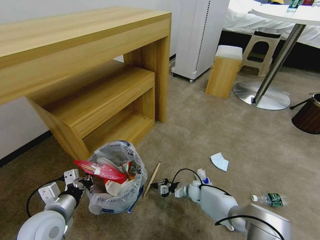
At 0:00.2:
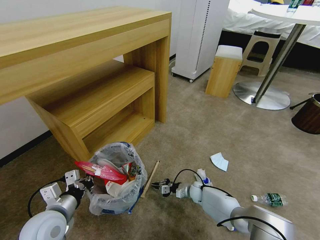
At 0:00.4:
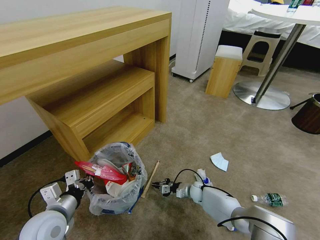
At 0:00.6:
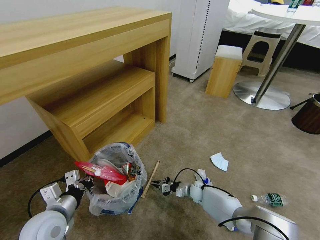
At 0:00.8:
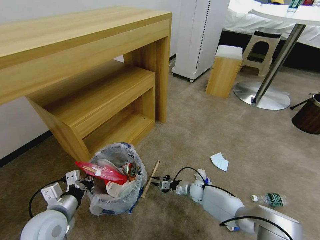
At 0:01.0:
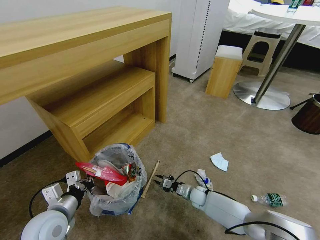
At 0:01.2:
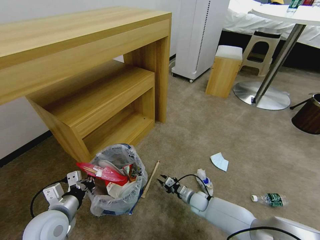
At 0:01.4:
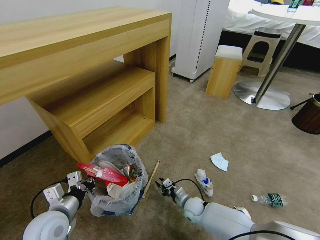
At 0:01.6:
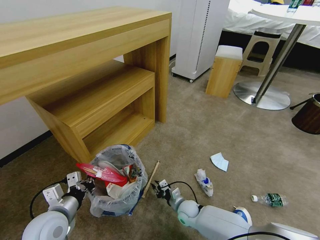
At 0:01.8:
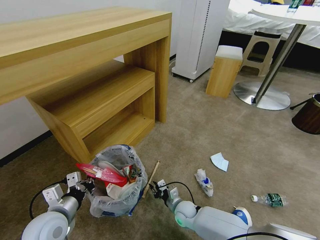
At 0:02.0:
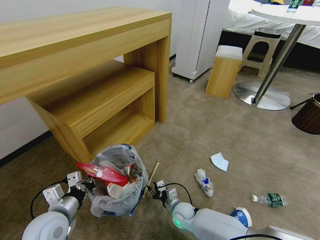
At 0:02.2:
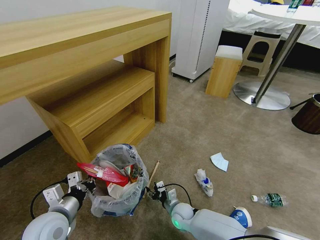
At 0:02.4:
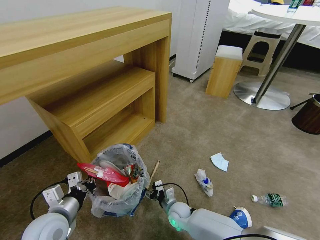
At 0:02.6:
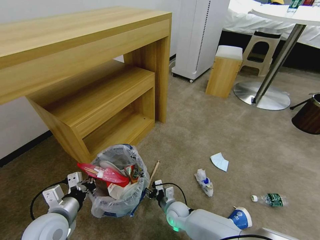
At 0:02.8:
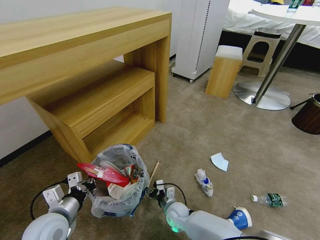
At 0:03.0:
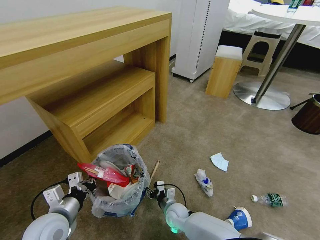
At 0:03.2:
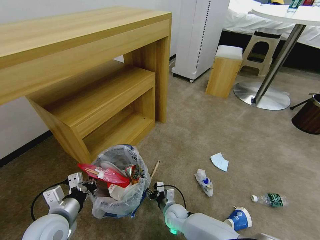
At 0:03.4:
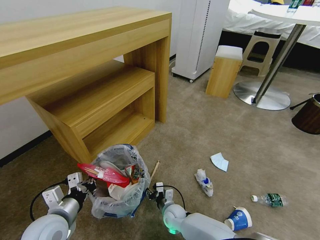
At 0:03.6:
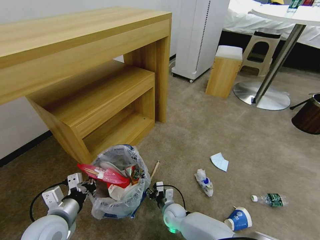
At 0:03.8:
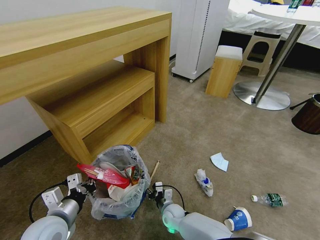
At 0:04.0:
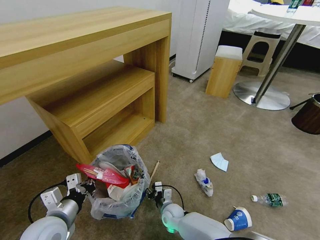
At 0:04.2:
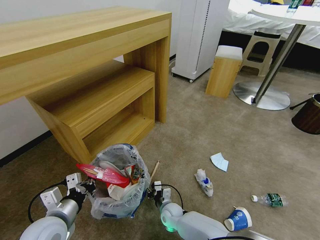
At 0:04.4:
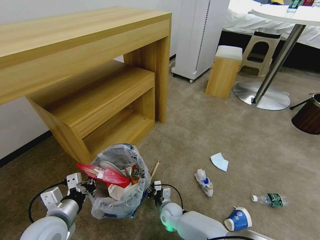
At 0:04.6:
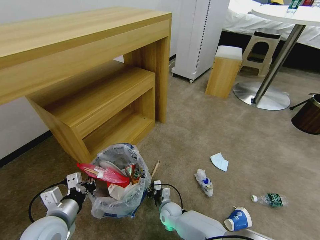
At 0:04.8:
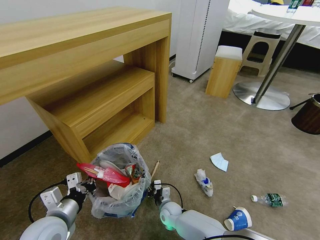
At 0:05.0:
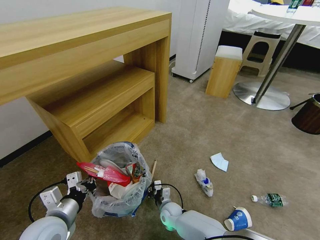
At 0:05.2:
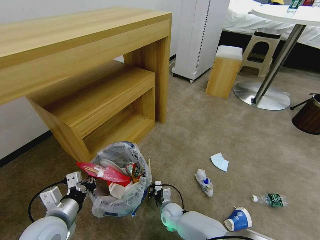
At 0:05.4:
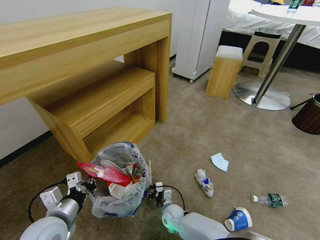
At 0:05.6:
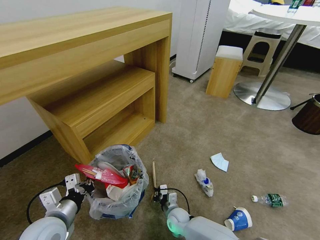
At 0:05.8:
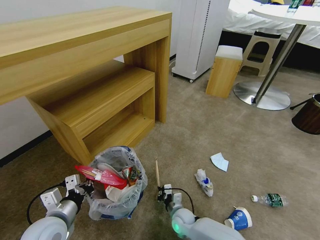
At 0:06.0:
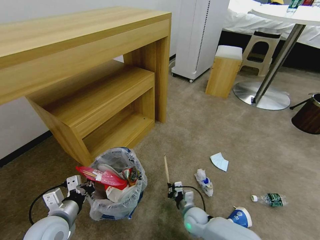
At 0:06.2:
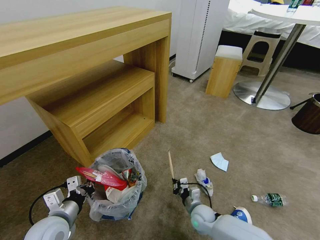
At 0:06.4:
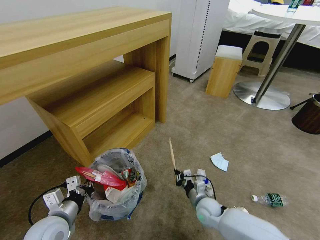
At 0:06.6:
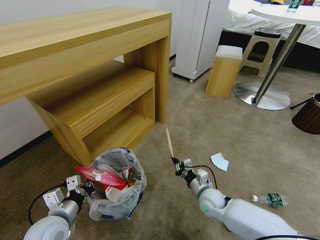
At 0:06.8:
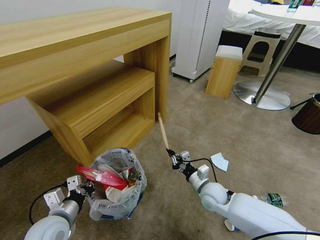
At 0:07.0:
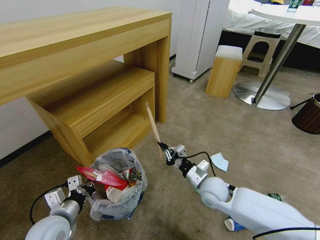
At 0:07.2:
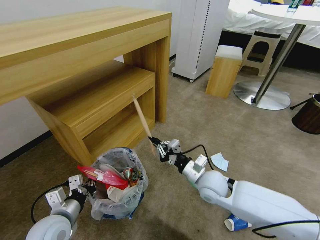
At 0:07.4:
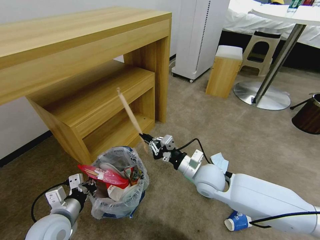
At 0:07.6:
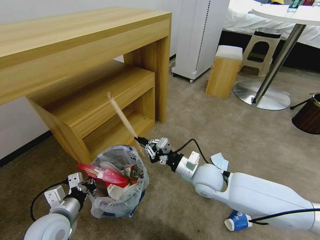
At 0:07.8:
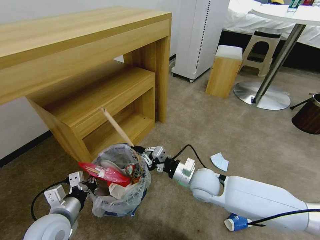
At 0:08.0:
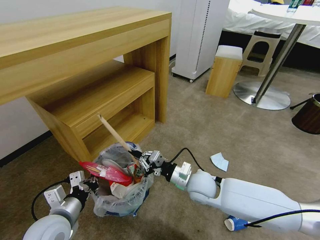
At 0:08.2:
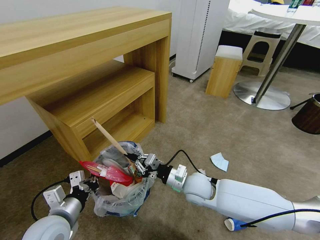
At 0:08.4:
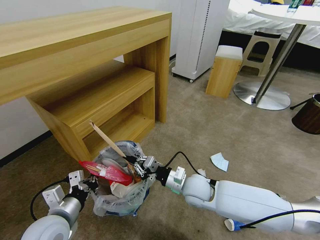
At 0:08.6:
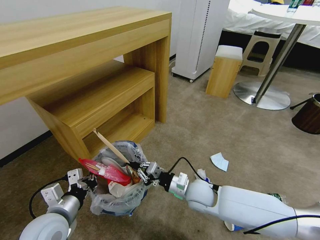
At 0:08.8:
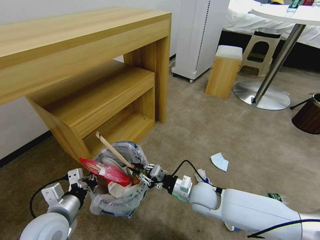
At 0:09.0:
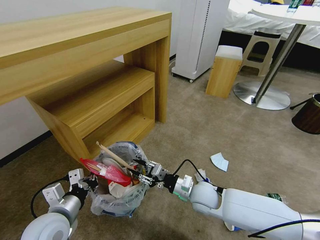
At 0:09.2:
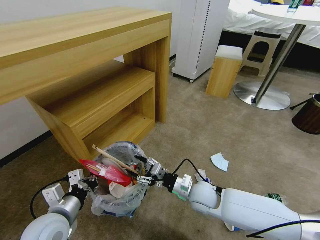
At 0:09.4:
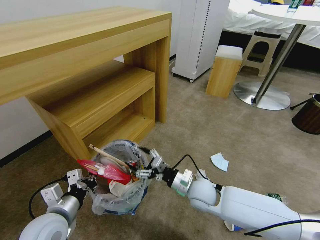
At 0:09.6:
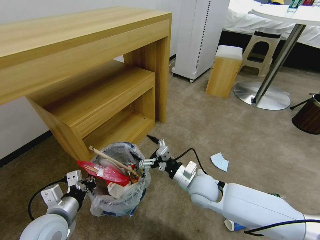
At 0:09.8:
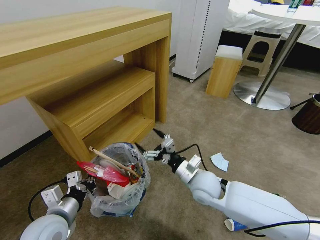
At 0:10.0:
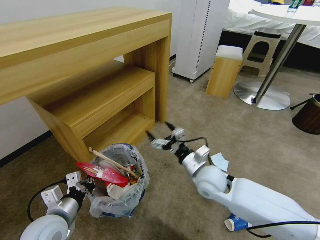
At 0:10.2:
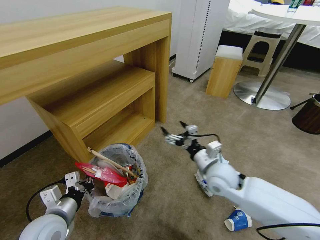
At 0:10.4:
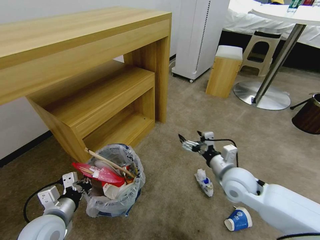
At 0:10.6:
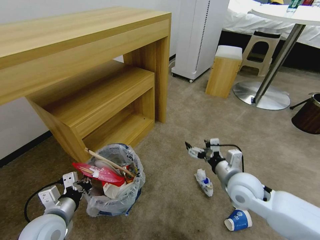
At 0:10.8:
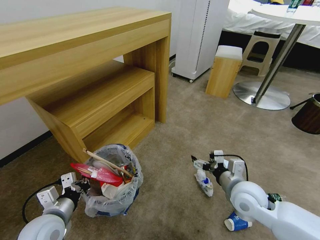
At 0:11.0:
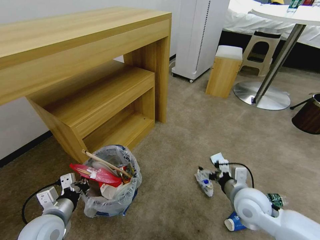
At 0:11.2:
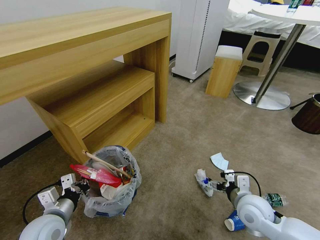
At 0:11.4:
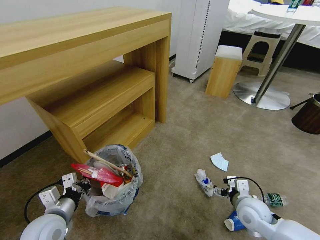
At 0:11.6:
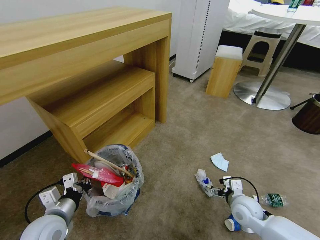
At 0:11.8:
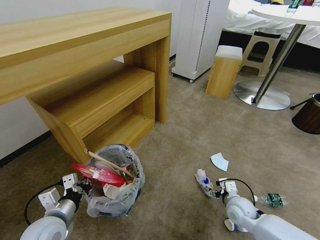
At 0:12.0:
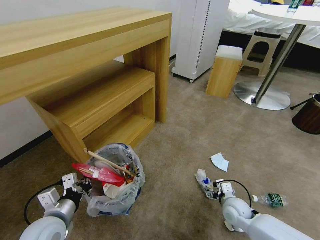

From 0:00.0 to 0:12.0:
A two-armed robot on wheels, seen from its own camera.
Task of the whole recording: Pick up the trash bin and place the garbage on the floor into it.
From 0:00.0 to 0:01.6: The right gripper moves backward and to the left, approximately 15 cm.
From 0:01.6 to 0:03.0: The right gripper goes roughly 5 cm to the left.
From 0:03.0 to 0:04.4: The grippers move only a little.
From 0:04.4 to 0:06.0: The right gripper heads to the right, covering approximately 10 cm, and closes.
From 0:06.0 to 0:07.6: The right gripper moves upward, about 25 cm.
From 0:07.6 to 0:09.0: The right gripper shifts about 10 cm downward, and opens its fingers.
From 0:09.0 to 0:10.4: The right gripper goes roughly 15 cm upward and to the right, and opens up.
From 0:10.4 to 0:12.0: The right gripper moves downward, approximately 15 cm.

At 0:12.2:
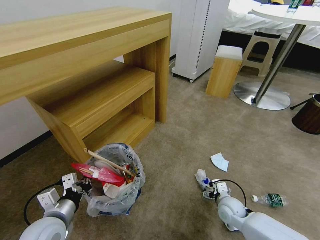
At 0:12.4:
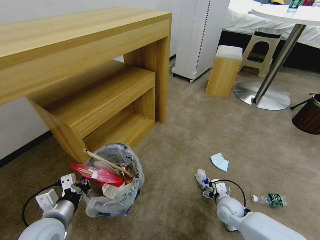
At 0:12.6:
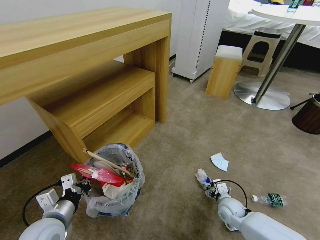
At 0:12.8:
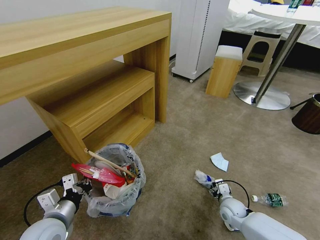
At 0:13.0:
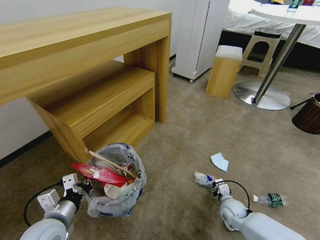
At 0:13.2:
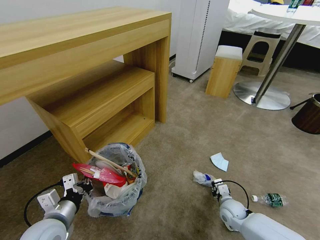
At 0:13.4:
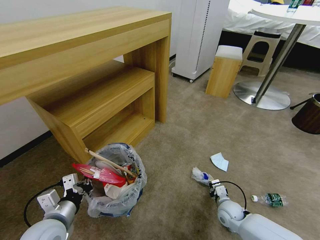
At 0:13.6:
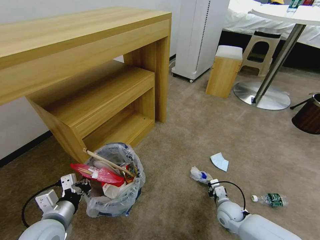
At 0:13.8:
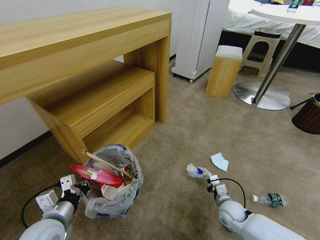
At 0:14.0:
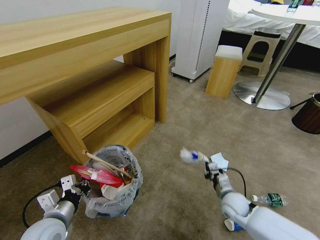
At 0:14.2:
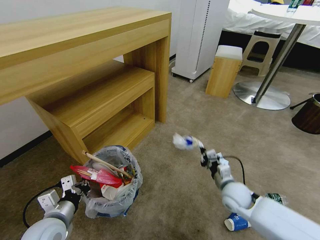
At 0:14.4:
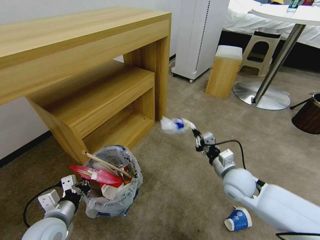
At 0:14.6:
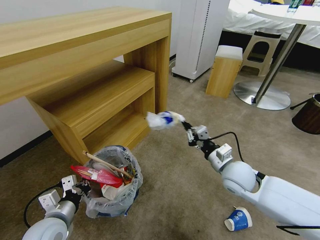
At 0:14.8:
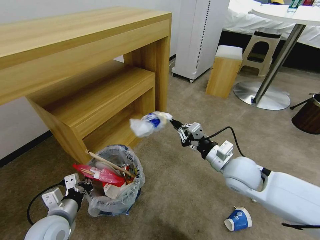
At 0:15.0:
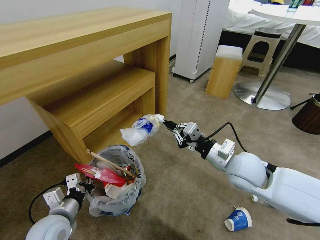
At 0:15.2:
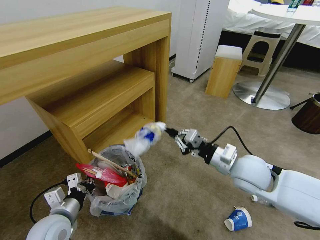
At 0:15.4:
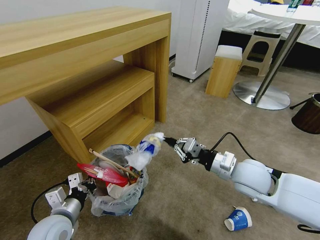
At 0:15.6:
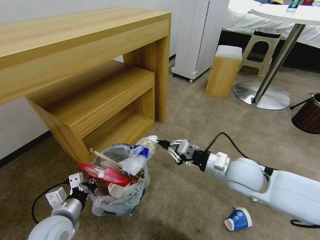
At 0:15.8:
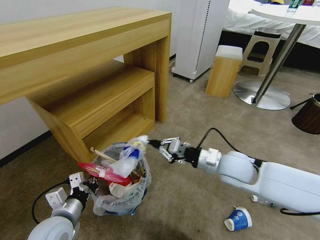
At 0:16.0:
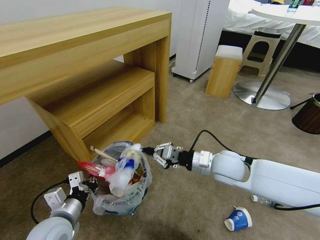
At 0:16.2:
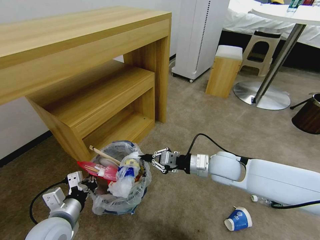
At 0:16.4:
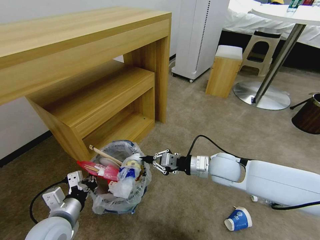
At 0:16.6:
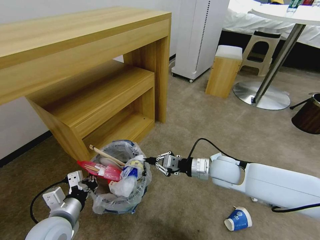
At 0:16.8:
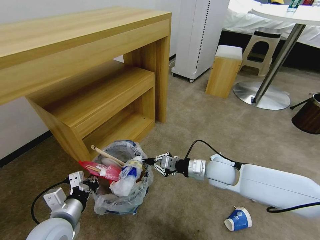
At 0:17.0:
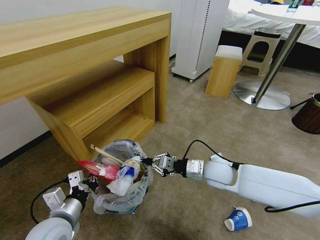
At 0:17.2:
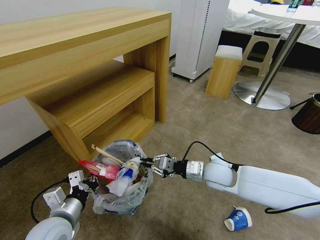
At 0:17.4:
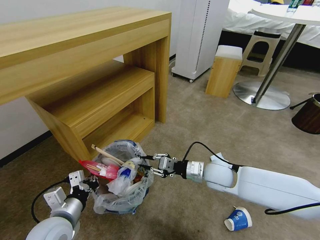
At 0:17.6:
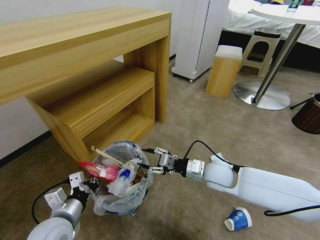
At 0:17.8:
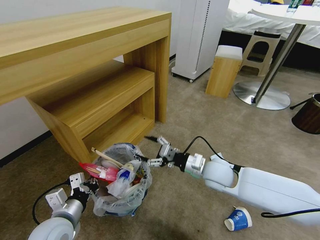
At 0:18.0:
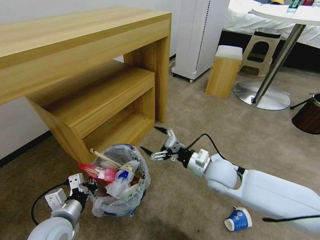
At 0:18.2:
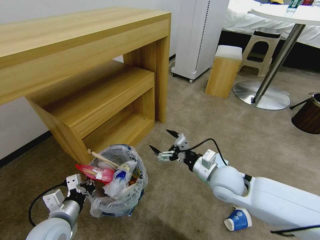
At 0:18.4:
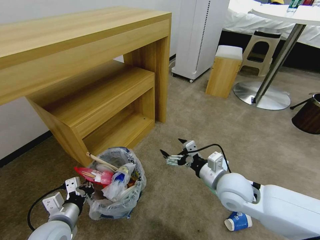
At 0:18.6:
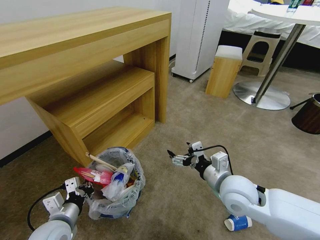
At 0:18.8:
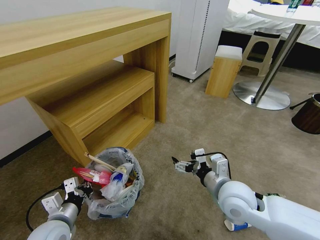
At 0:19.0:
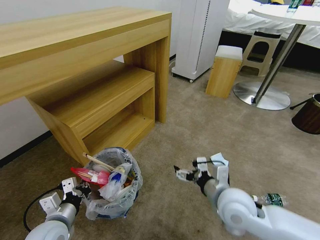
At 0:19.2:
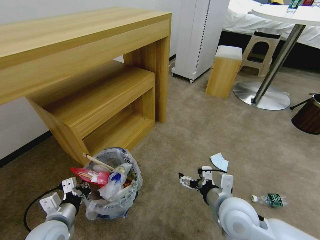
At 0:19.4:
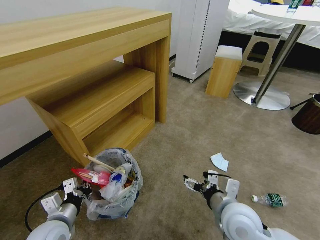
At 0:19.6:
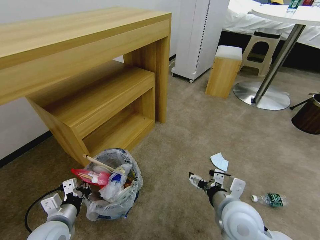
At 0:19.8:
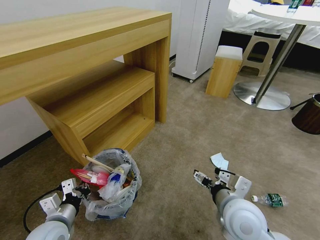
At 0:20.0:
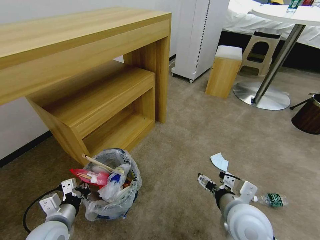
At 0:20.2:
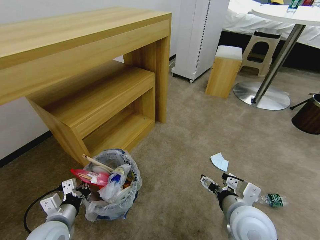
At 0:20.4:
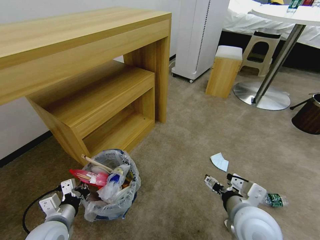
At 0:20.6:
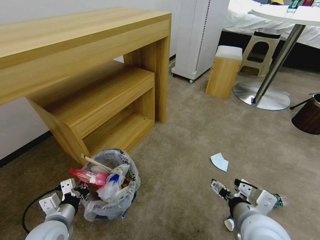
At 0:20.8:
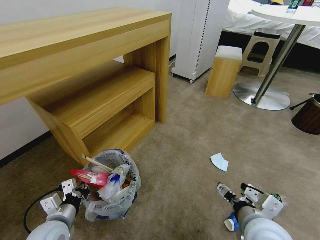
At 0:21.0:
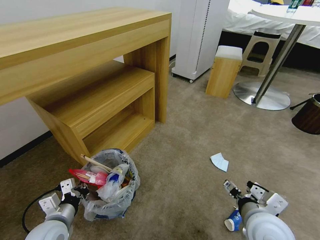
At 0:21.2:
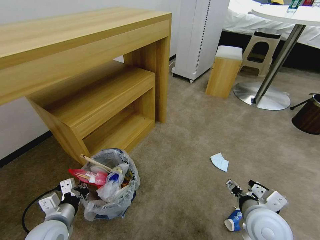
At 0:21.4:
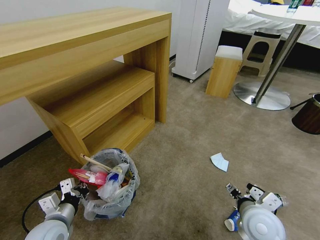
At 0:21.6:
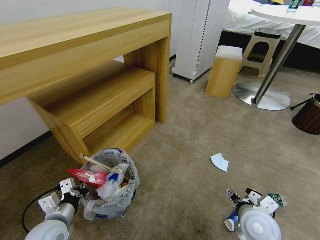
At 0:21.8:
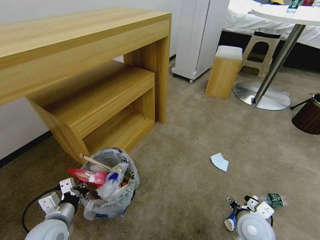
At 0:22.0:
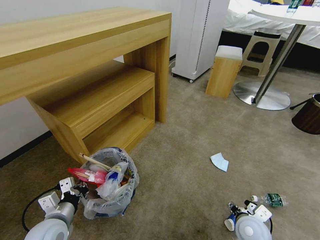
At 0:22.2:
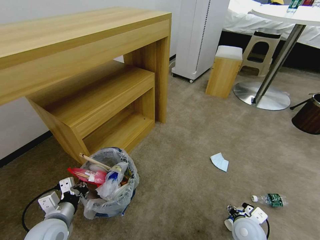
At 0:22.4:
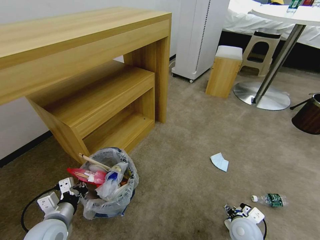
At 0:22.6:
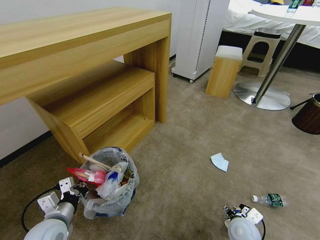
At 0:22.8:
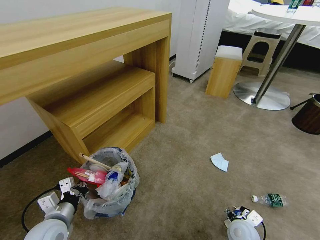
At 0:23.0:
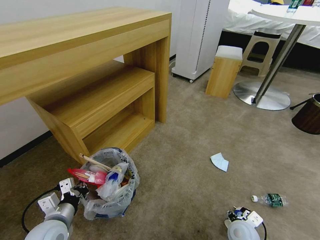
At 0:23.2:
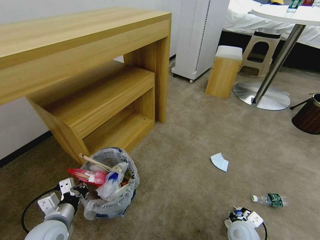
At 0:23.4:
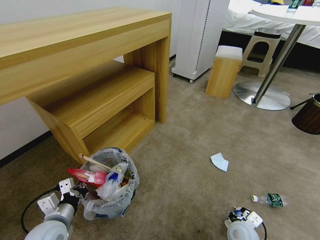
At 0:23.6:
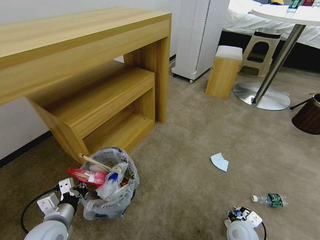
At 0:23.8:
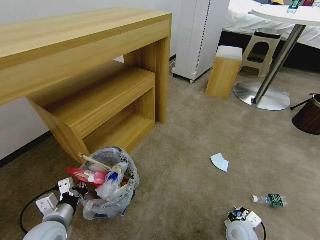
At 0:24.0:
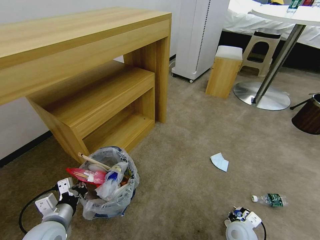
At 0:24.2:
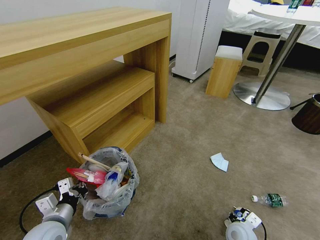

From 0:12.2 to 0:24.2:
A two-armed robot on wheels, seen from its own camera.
Task of the whole recording: Pick up the trash bin and place the garbage on the floor into it.
From 0:12.2 to 0:13.8: The right gripper closes up.
From 0:13.8 to 0:15.2: The right gripper moves upward, roughly 30 cm.
From 0:15.2 to 0:16.6: The right gripper moves downward, about 5 cm.
From 0:16.6 to 0:18.2: The right gripper is displaced backward by some 5 cm, and opens up.
From 0:18.2 to 0:19.8: The right gripper moves backward, some 10 cm.
From 0:19.8 to 0:21.2: The right gripper is displaced to the right by some 5 cm.
From 0:21.2 to 0:22.6: The right gripper goes approximately 15 cm downward.
From 0:22.6 to 0:24.2: The grippers move only a little.
